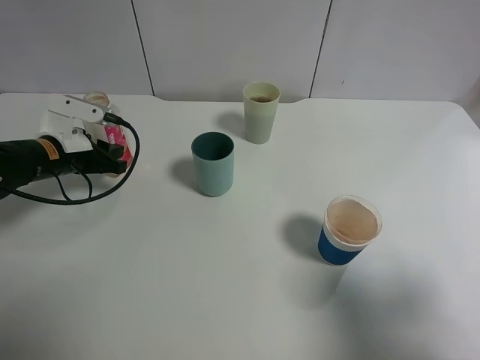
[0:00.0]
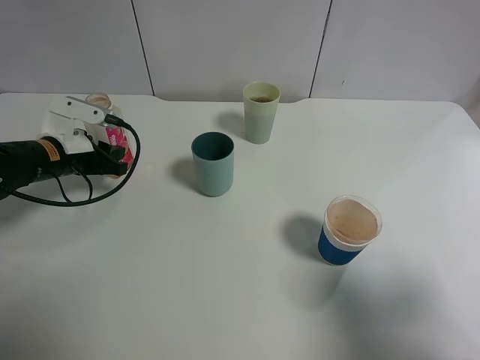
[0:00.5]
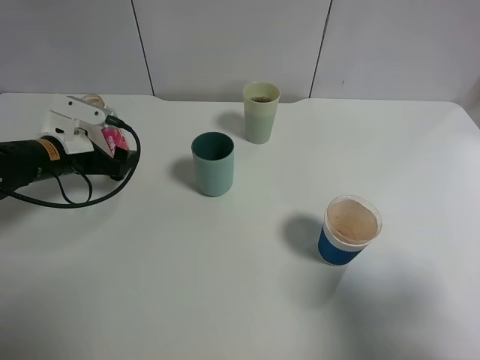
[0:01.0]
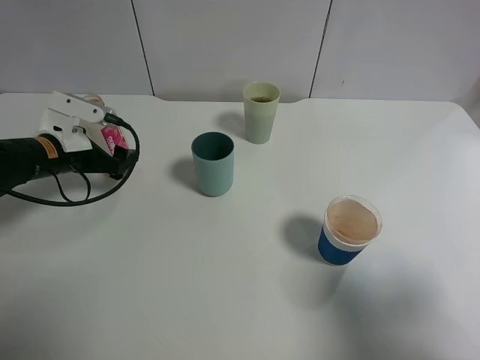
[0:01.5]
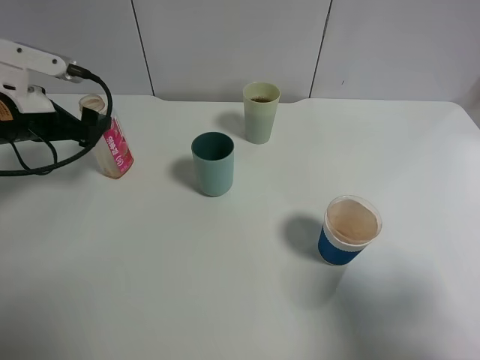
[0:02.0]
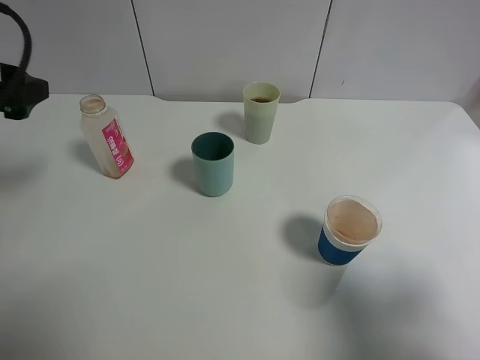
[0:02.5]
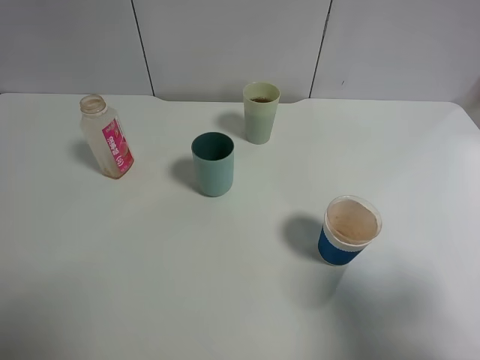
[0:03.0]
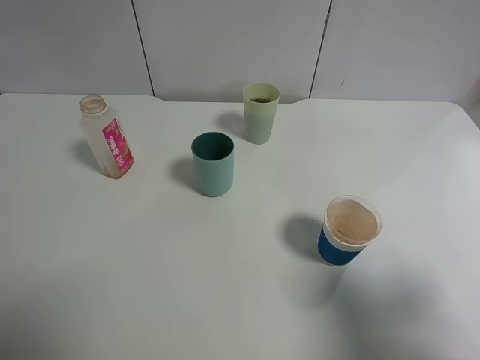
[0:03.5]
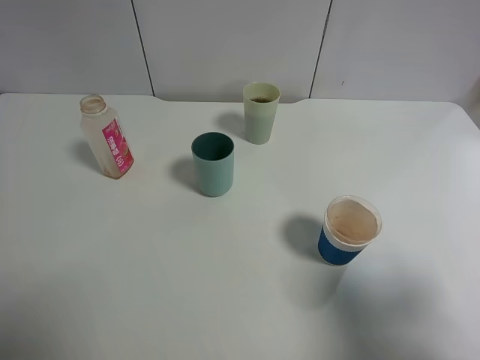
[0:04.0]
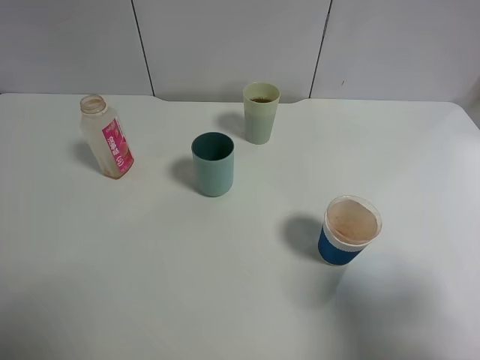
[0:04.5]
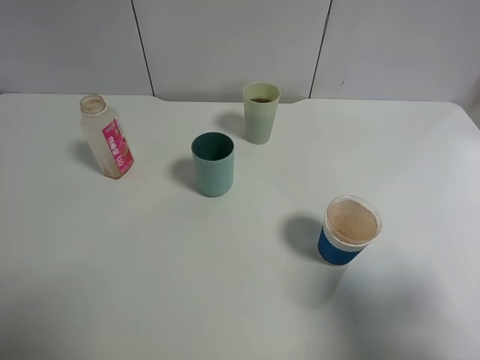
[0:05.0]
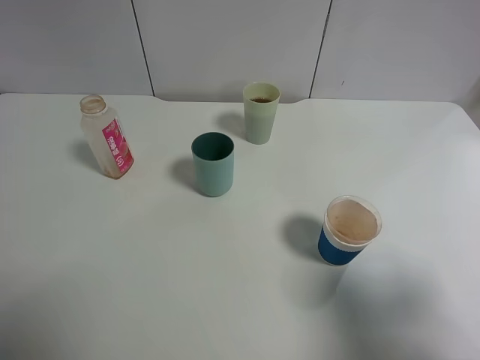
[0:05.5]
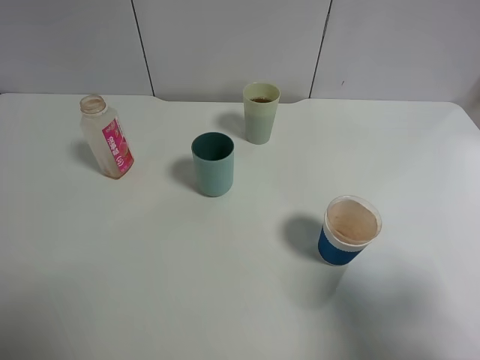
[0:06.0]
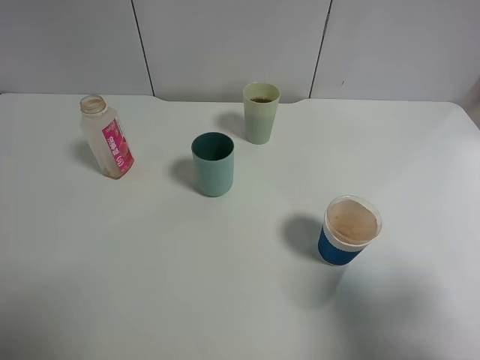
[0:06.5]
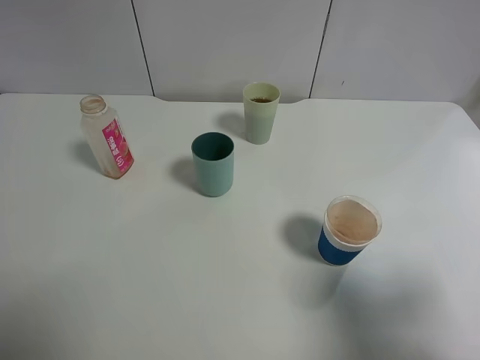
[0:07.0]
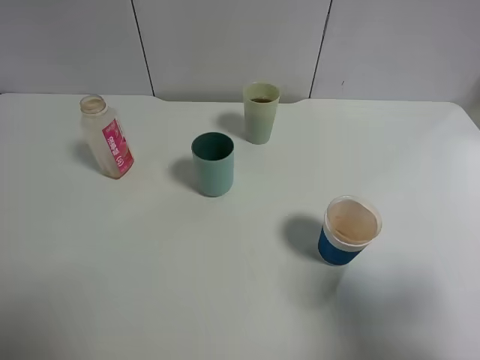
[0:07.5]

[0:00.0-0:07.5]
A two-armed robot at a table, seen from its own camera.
Task of the whole recording: use a gripper to hold the bottle of the drink and pour it into a random cup.
0:00.0 to 0:02.0: The left gripper moves upward, some 10 cm, and opens its fingers.
0:02.0 to 0:04.0: The left gripper heads backward and upward, covering approximately 35 cm.
0:05.5 to 0:07.5: Both grippers stay about where they are.

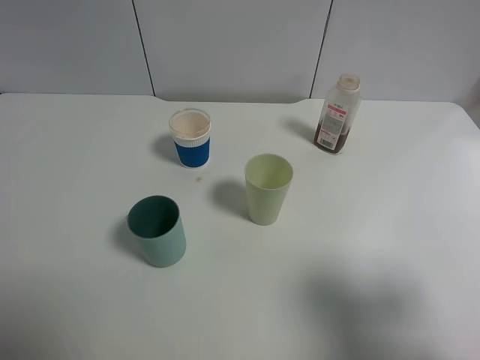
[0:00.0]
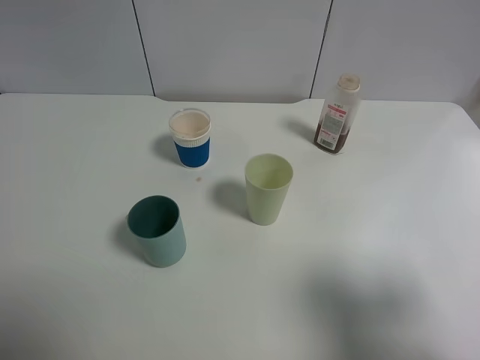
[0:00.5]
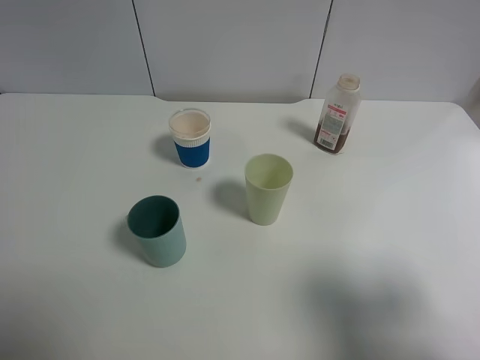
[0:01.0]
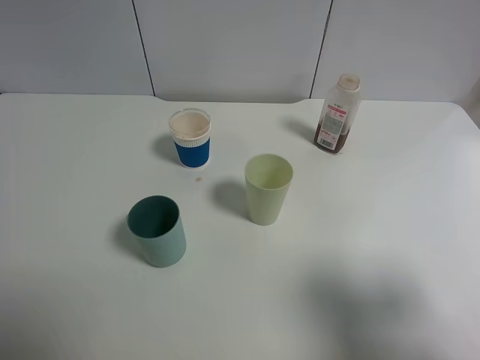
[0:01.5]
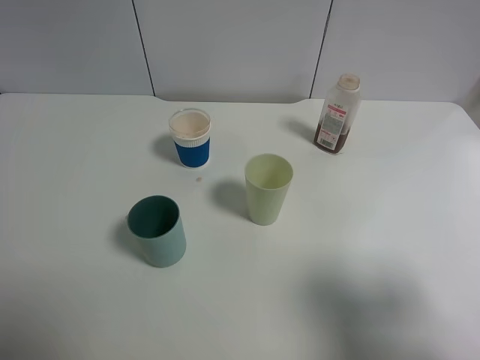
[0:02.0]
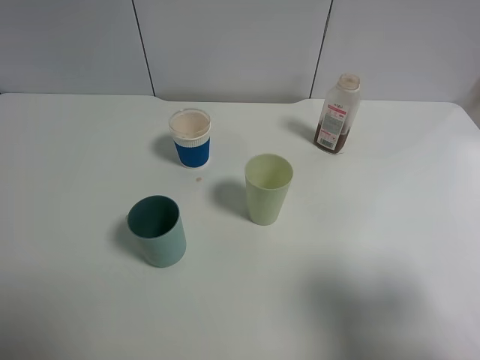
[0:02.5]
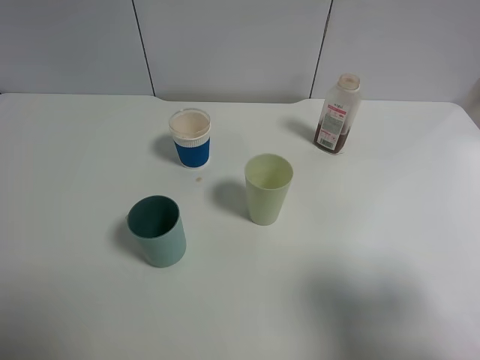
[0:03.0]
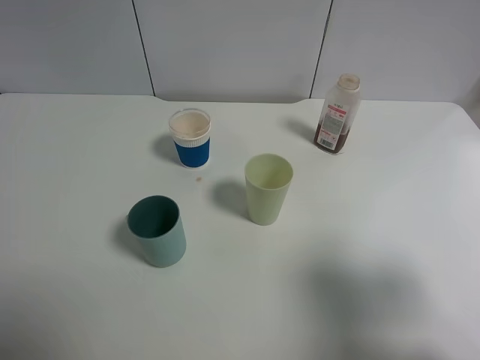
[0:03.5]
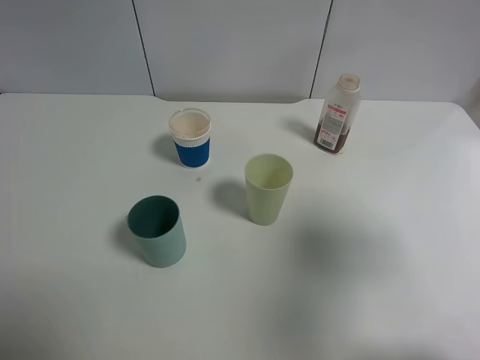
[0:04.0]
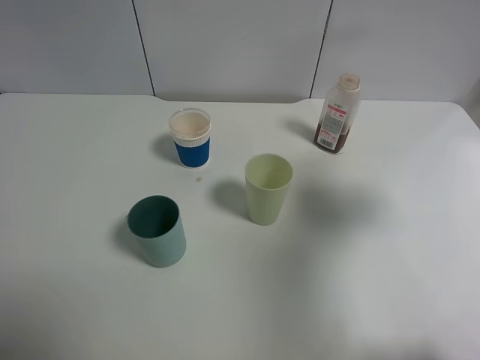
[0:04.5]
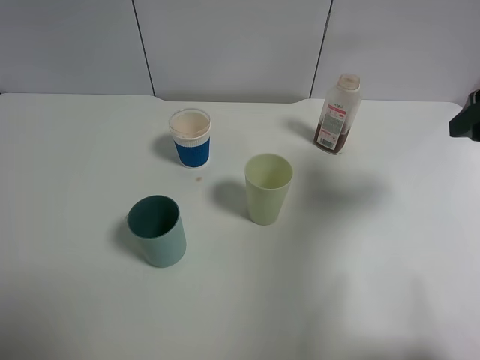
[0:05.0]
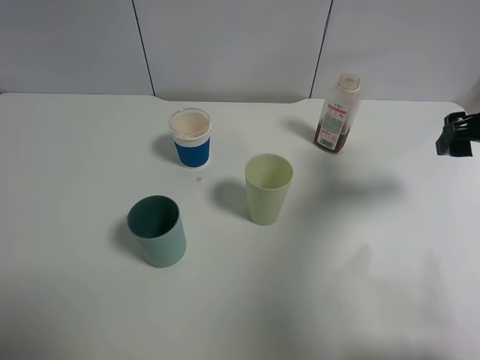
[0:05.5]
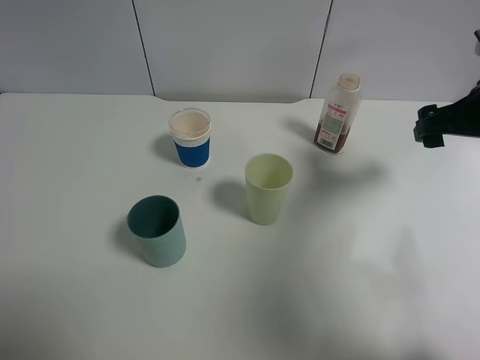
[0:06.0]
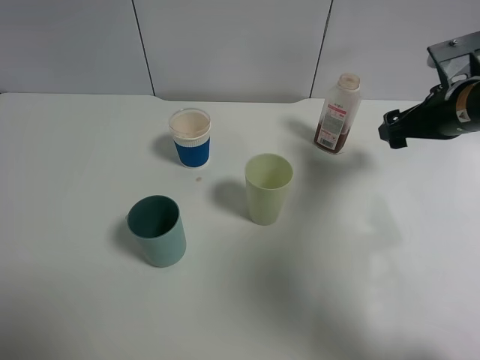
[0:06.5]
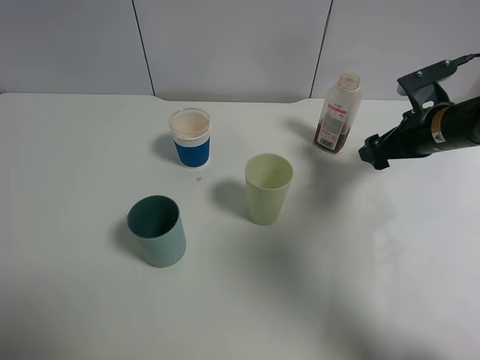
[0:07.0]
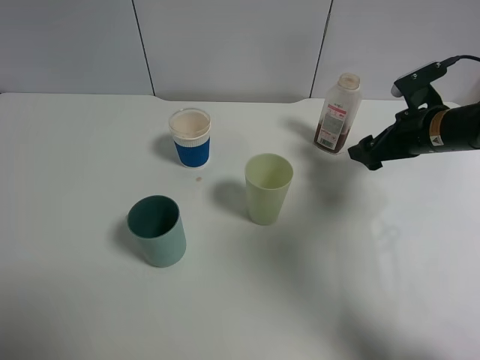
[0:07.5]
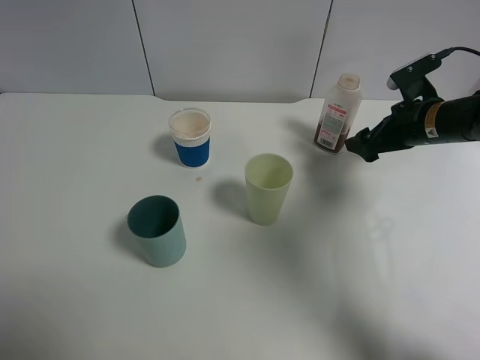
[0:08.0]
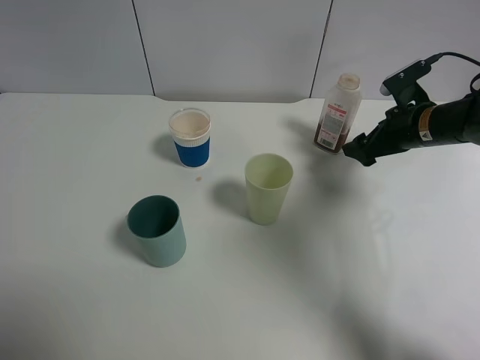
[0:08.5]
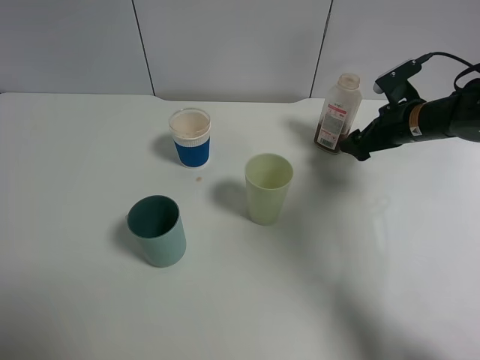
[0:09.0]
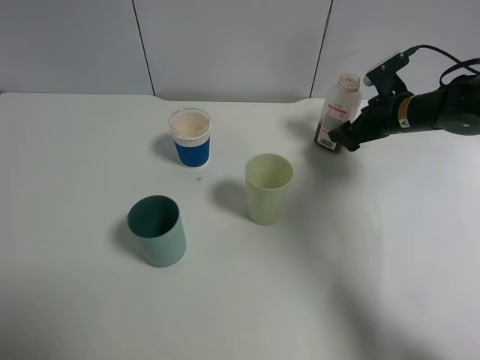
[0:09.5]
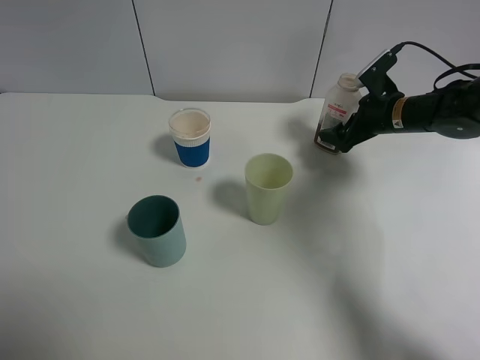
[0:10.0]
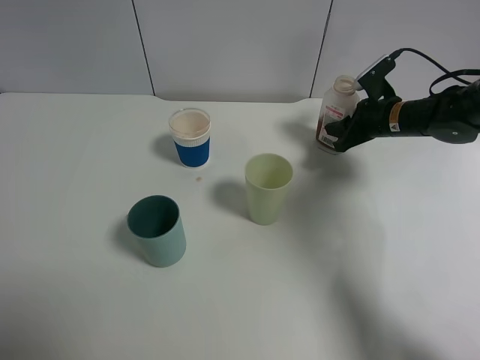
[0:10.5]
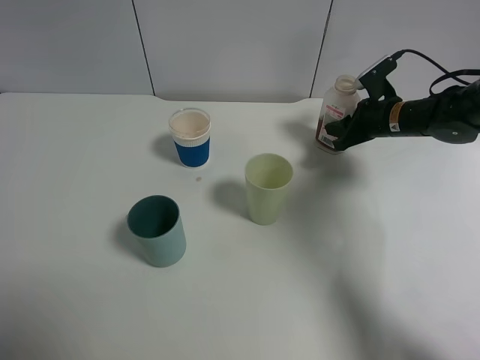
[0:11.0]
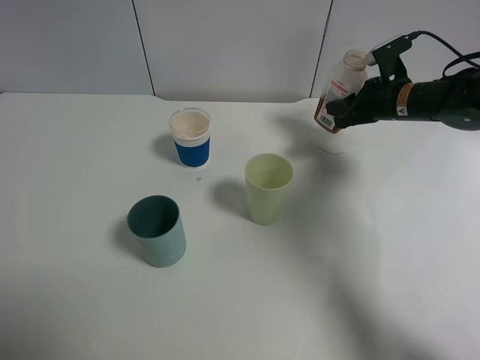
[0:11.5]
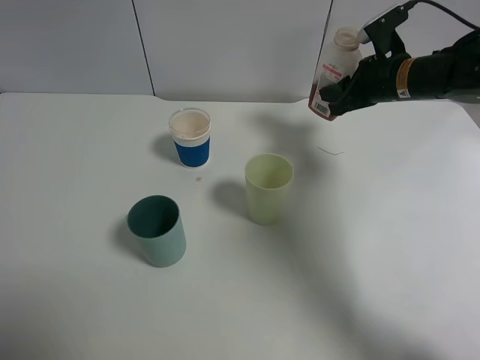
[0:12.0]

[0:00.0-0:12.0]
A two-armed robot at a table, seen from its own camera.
Task of the whole recording: use a gripper to hold the bottle of the drink and pour it into a random cup.
Step, 0:00.0 to 0:10.5: Grasp the cranberry juice bottle with the right gripper.
0:00.0 to 0:02.0: Both grippers stay put.
0:02.0 to 0:04.0: The right gripper heads forward and upward, covering approximately 10 cm.
0:04.0 to 0:06.0: The right gripper heads forward and downward, covering roughly 20 cm.
0:06.0 to 0:08.0: The right gripper heads downward and forward, covering about 10 cm.
0:08.0 to 0:10.0: The right gripper heads forward, covering about 5 cm.
0:10.0 to 0:12.0: The right gripper heads upward, covering about 5 cm, and closes up.

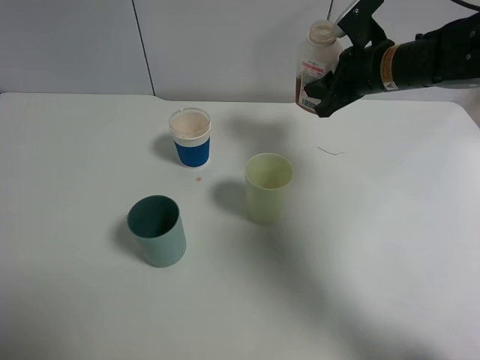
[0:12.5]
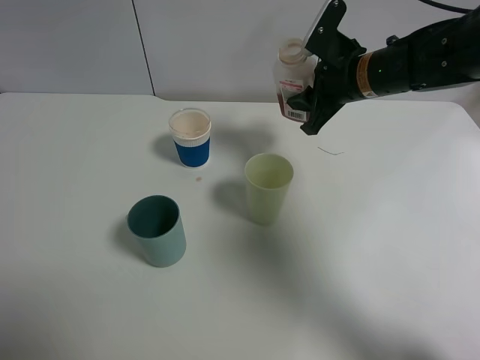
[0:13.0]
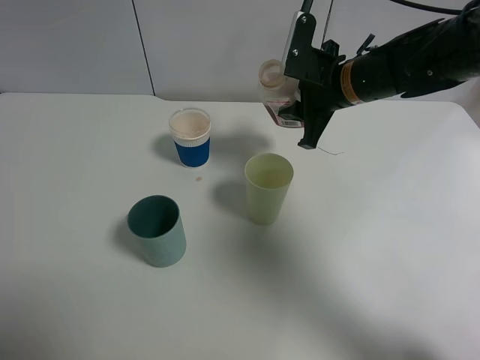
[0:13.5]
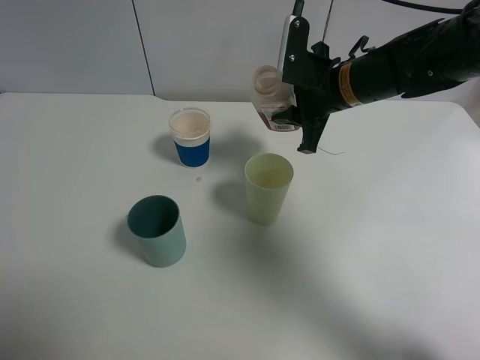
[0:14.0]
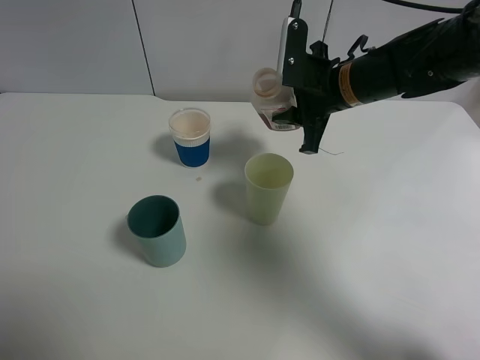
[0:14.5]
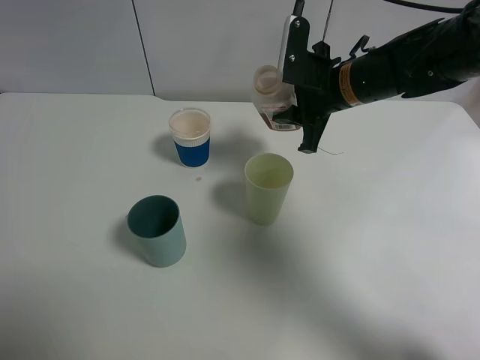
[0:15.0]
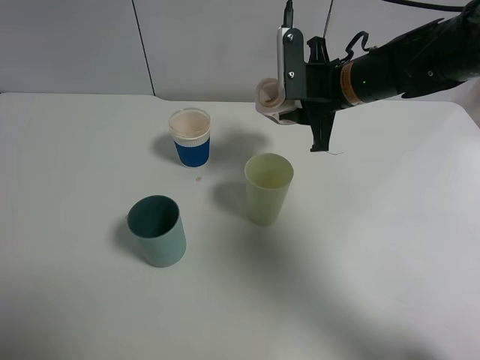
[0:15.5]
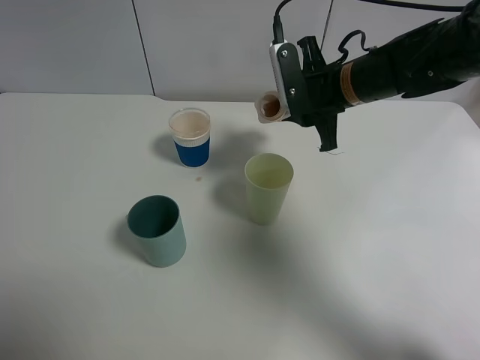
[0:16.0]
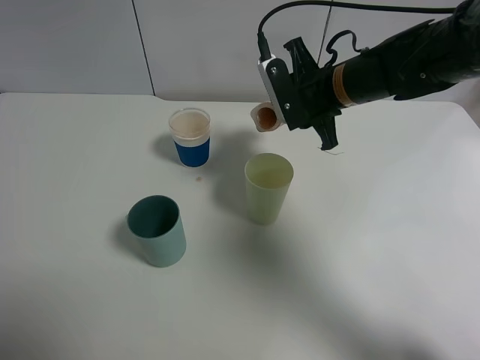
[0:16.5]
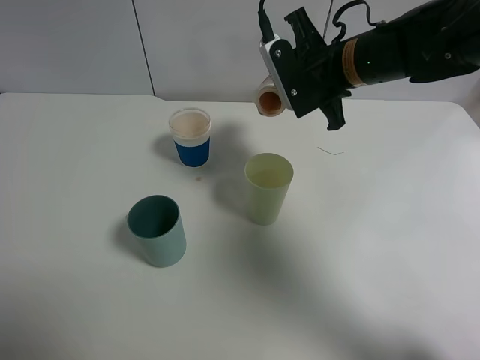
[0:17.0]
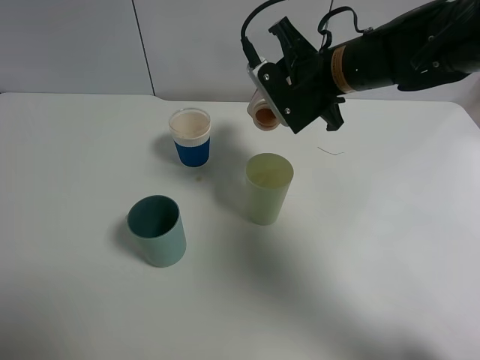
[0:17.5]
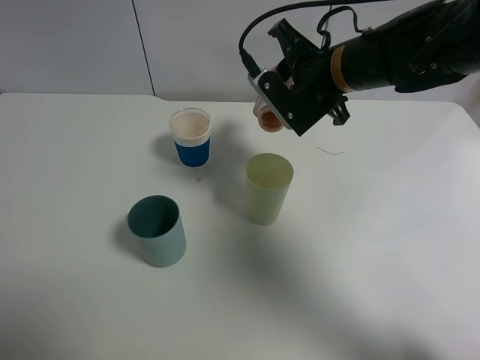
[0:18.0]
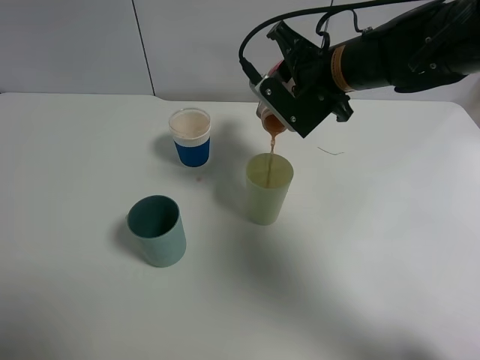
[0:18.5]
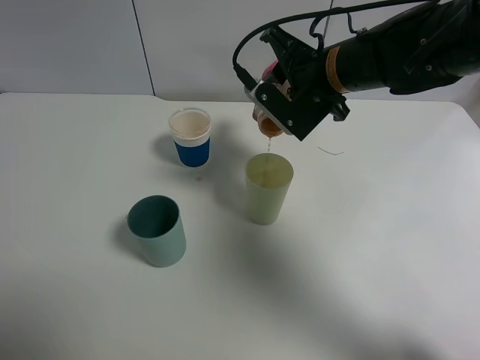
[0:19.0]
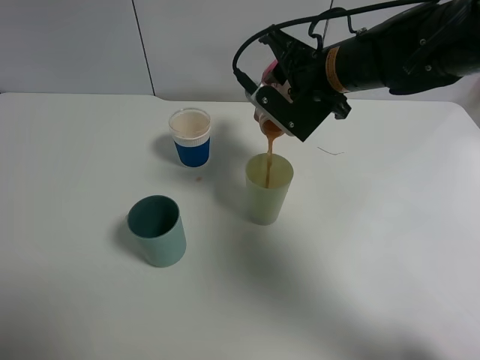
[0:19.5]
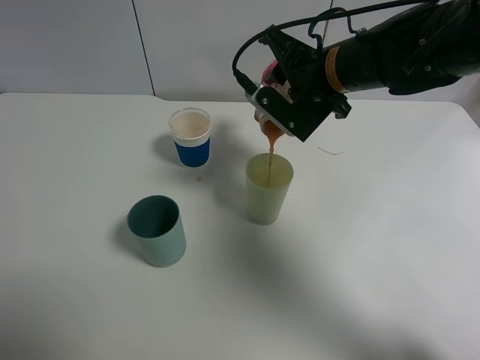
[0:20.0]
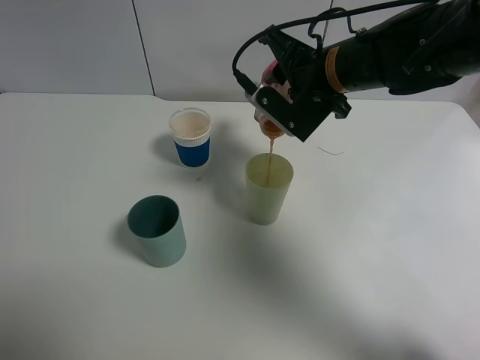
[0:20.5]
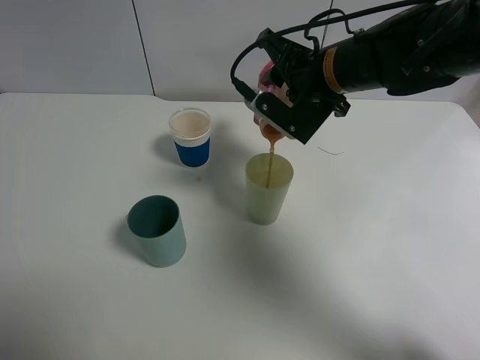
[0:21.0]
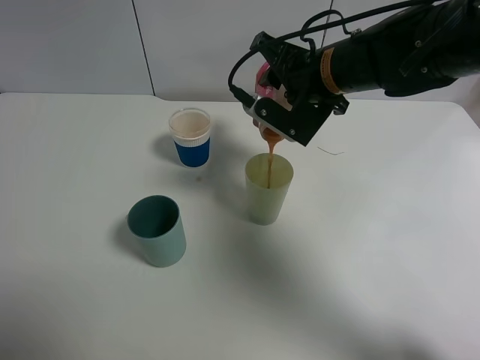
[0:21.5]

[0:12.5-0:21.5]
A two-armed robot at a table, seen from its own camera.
Task of the whole recording: use a gripper to hold the bottle of the drink and pour it into a random cup.
0:12.5 to 0:14.5: The right gripper goes roughly 5 cm to the left.
0:19.5 to 0:21.5: There are only small adjustments of the grippers.
